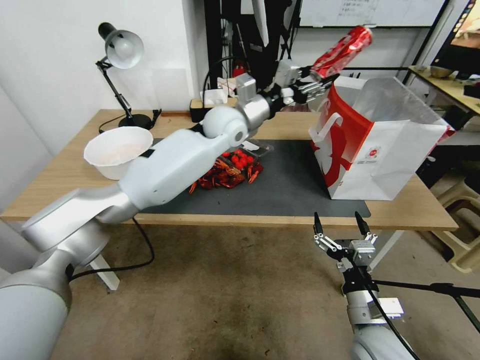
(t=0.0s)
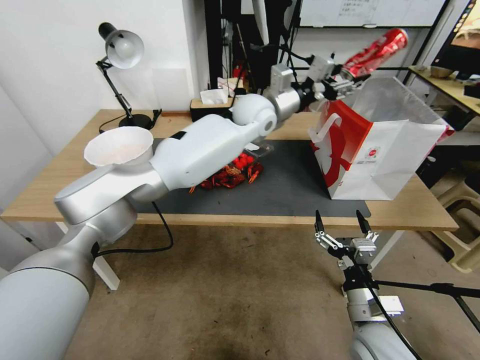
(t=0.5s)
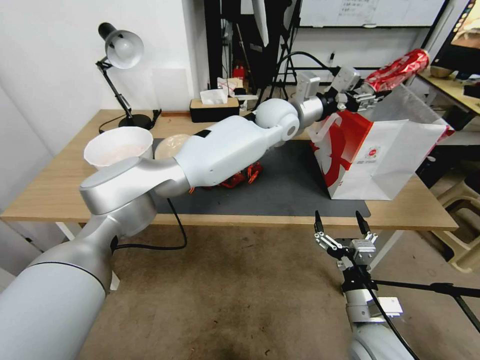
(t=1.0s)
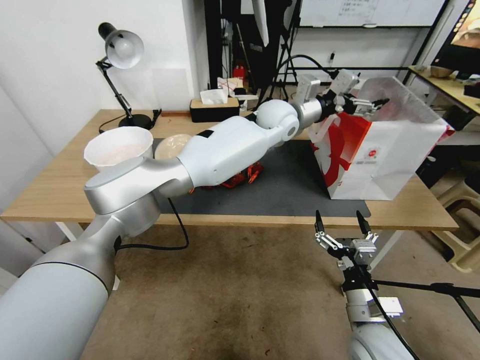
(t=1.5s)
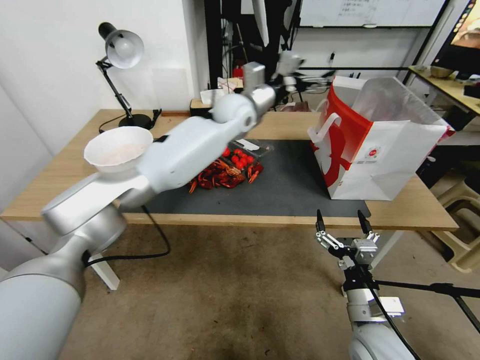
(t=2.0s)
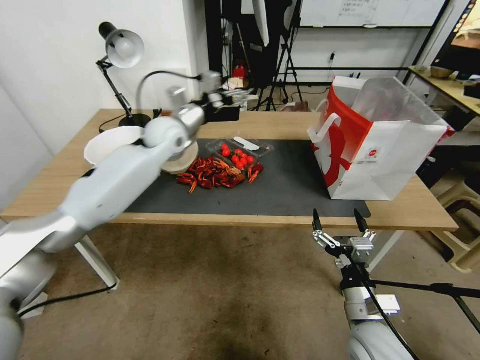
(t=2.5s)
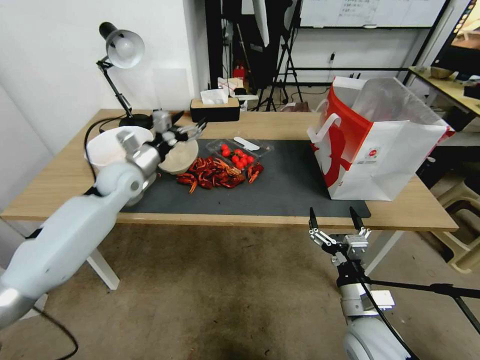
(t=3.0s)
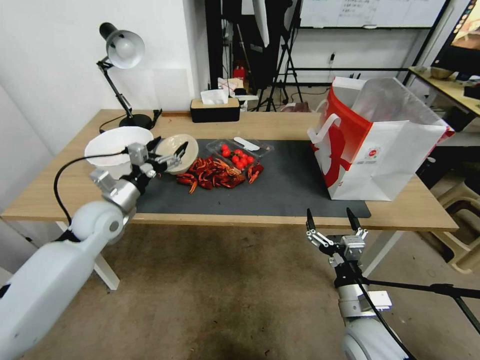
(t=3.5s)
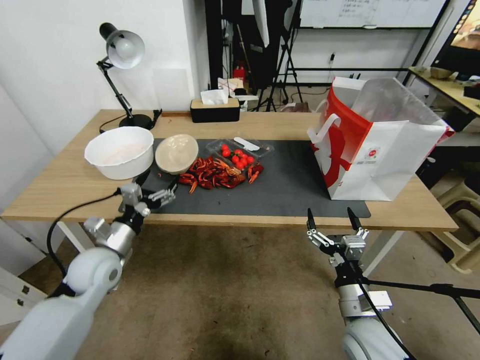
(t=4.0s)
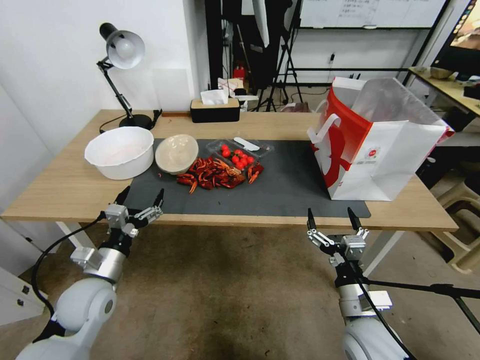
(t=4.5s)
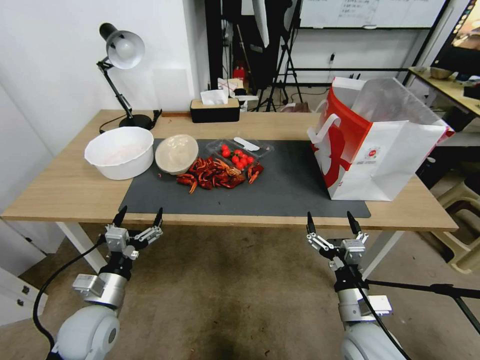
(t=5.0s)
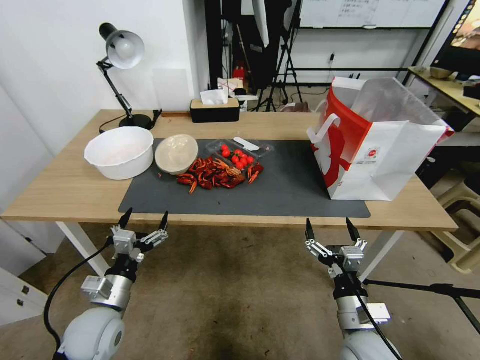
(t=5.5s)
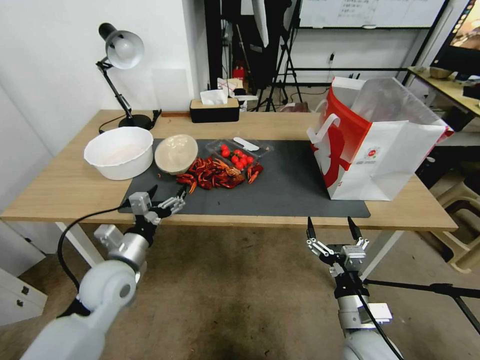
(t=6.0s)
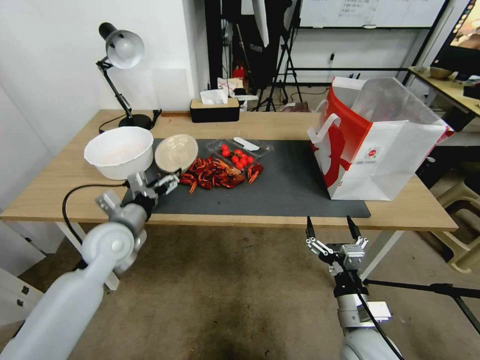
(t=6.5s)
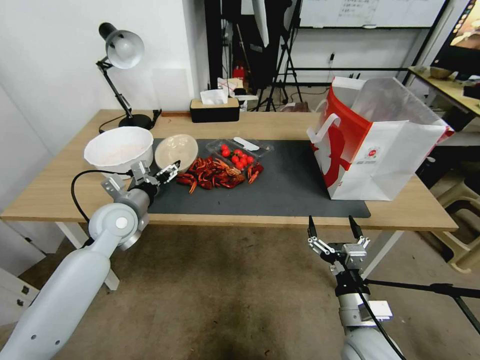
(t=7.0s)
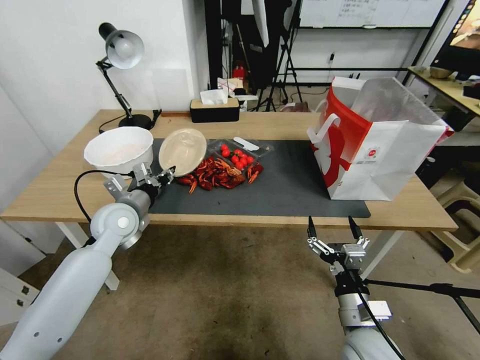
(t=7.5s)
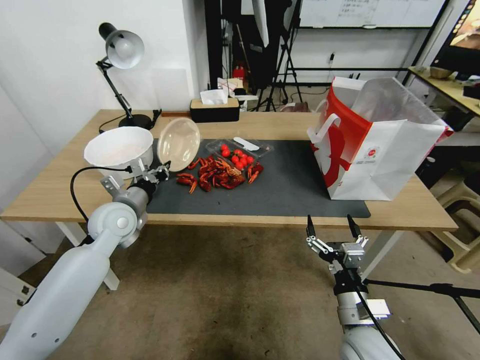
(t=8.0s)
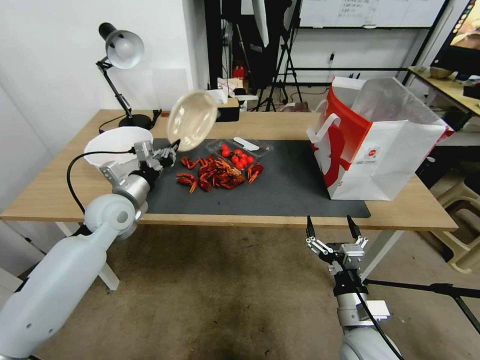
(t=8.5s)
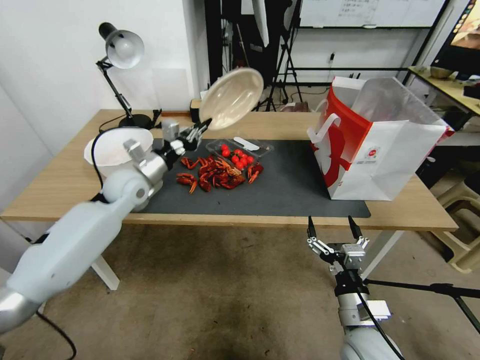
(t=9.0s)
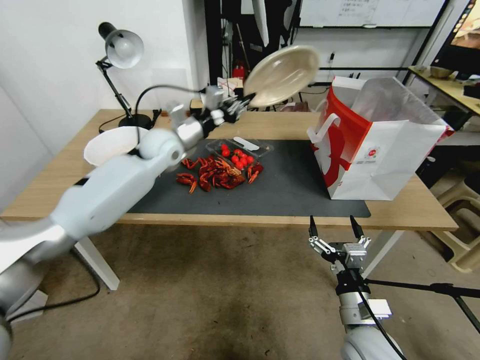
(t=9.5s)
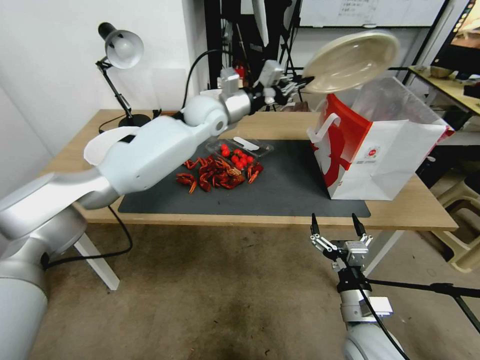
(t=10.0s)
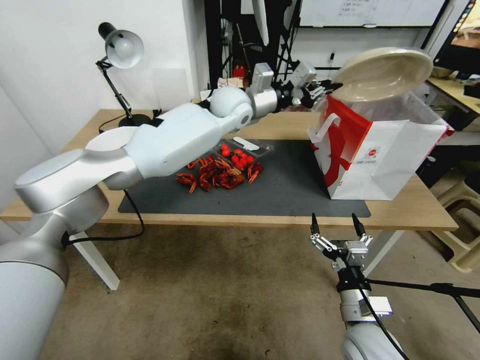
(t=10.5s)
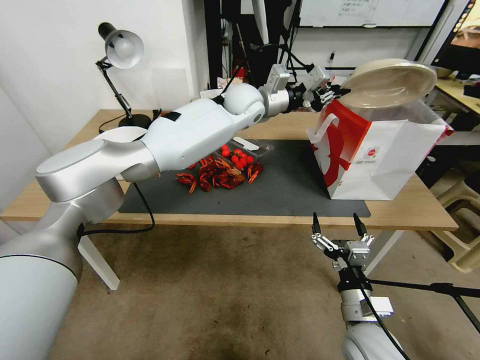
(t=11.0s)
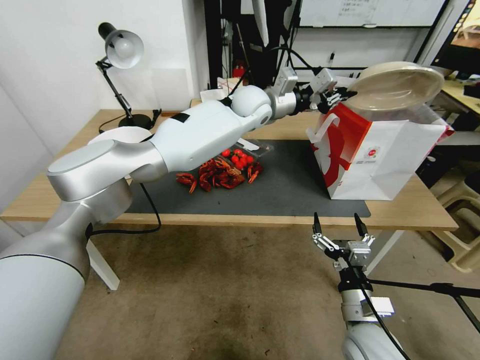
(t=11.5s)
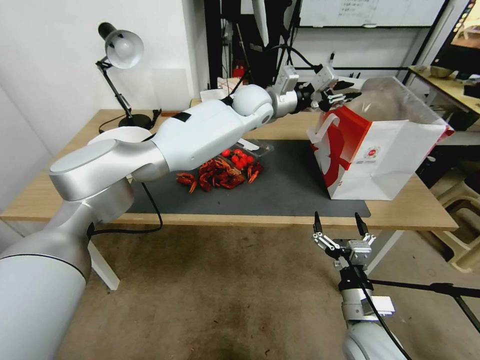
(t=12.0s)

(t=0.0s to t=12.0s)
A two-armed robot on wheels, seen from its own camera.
t=0.0s - t=2.0s: The left gripper reaches about 10 cm to the right, then returns, and opens its fingers.
t=2.0s - t=4.0s: The left gripper is displaced to the left, backward and downward by roughly 50 cm.
t=4.0s - t=6.0s: The left gripper goes backward and returns, about 10 cm each way.
t=6.0s - t=8.0s: The left gripper travels forward by some 10 cm, and closes.
t=8.0s - t=10.0s: The left gripper shifts about 30 cm to the right, forward and upward.
t=10.0s - t=12.0s: The left gripper travels to the right by approximately 10 cm.

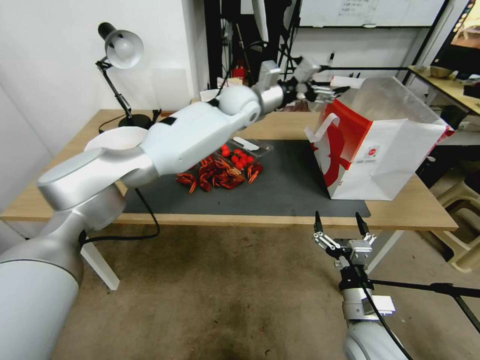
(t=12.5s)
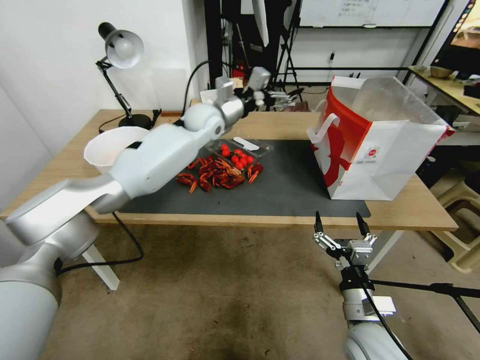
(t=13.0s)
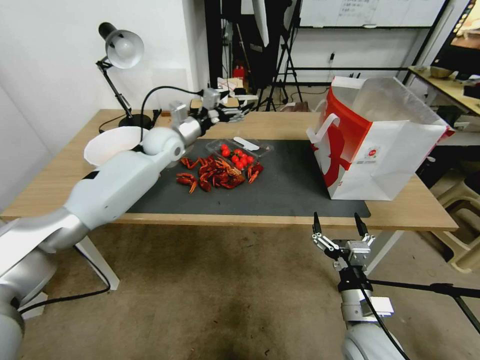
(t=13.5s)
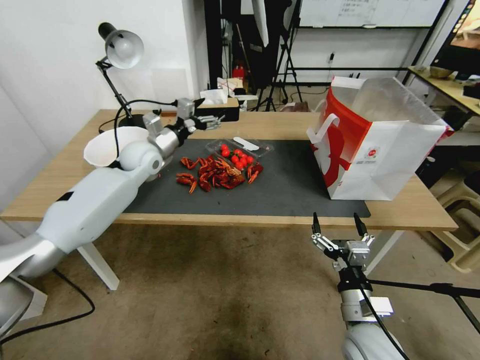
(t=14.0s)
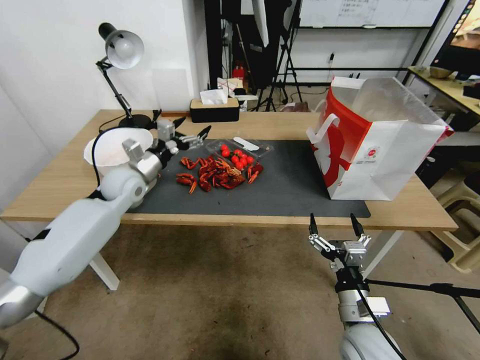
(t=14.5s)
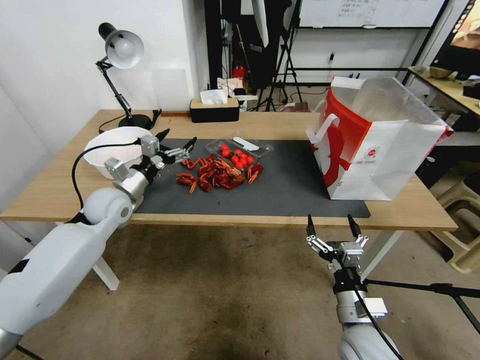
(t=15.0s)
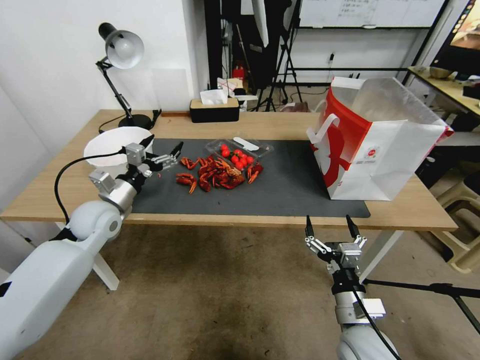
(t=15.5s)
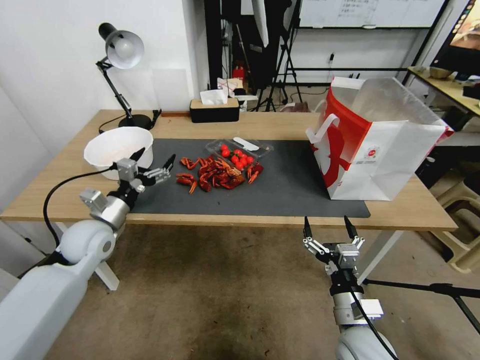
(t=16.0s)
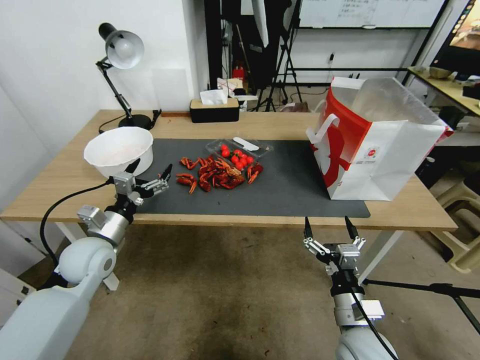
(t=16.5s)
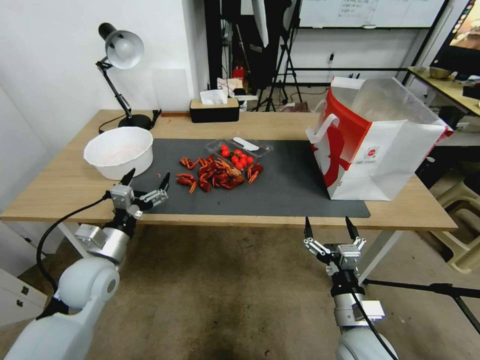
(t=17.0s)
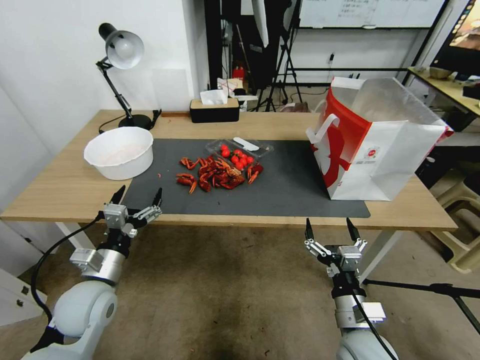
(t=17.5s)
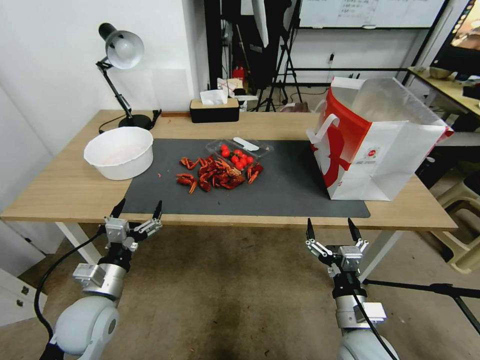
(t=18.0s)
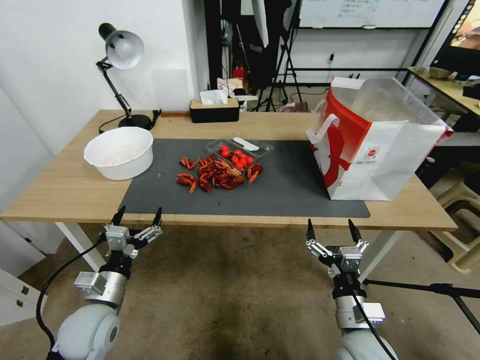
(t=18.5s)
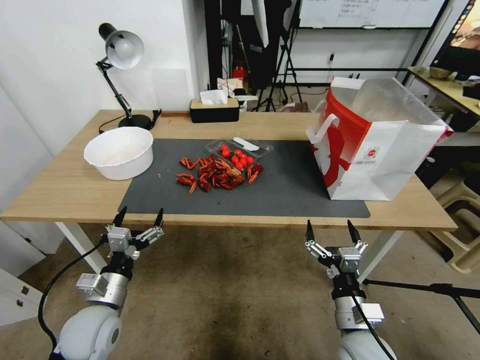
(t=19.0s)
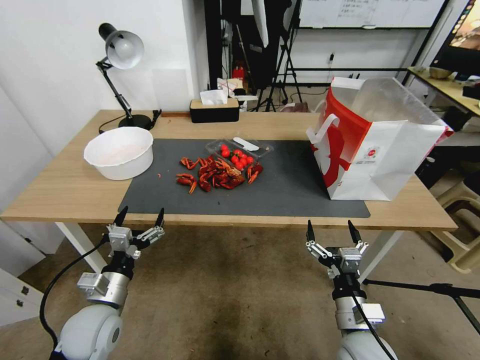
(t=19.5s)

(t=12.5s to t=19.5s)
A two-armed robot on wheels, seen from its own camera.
t=12.5s - t=14.5s: The left gripper heads to the left, downward and backward, covering some 35 cm.
t=14.5s - t=16.0s: The left gripper heads backward, covering approximately 15 cm.
t=16.0s - t=17.5s: The left gripper is displaced backward by some 10 cm.
t=17.5s - t=19.5s: The left gripper ends up about 5 cm from where it was.
